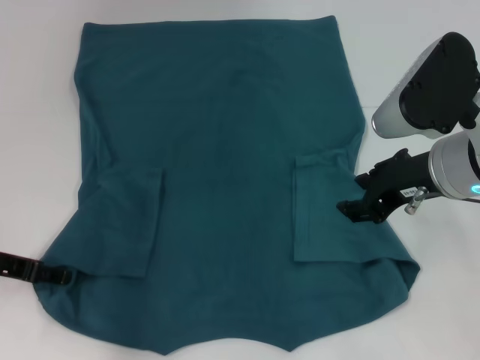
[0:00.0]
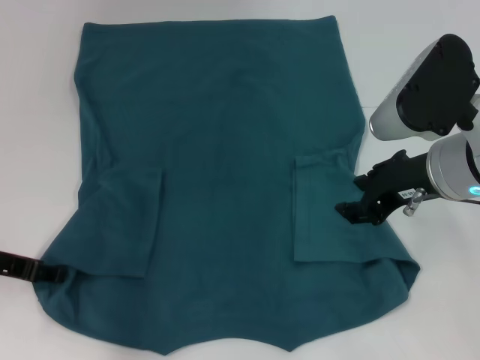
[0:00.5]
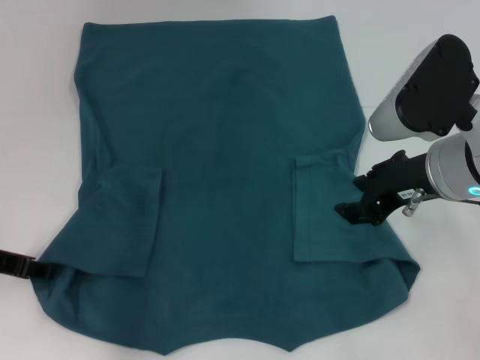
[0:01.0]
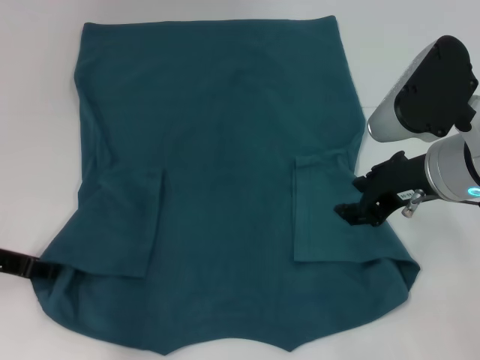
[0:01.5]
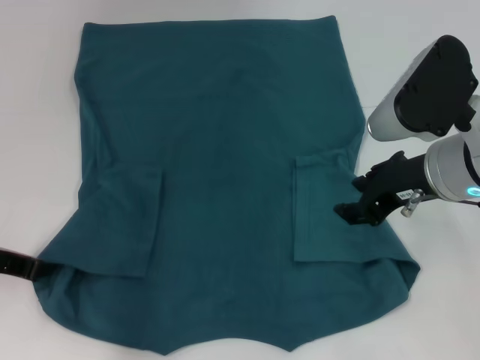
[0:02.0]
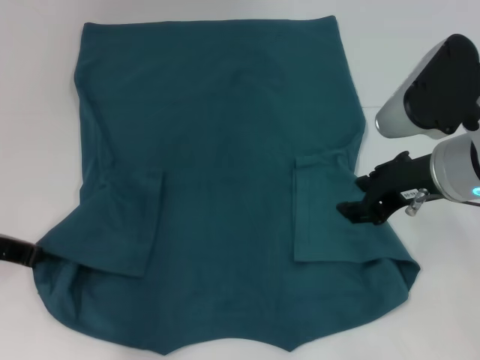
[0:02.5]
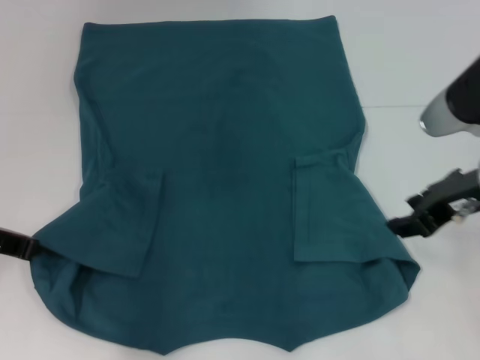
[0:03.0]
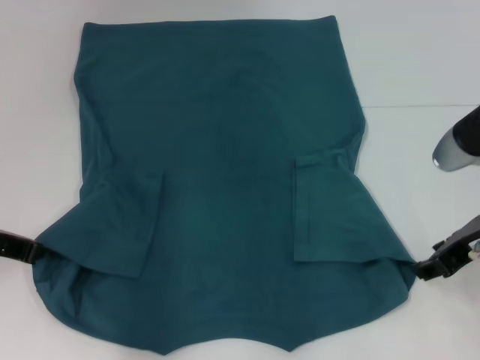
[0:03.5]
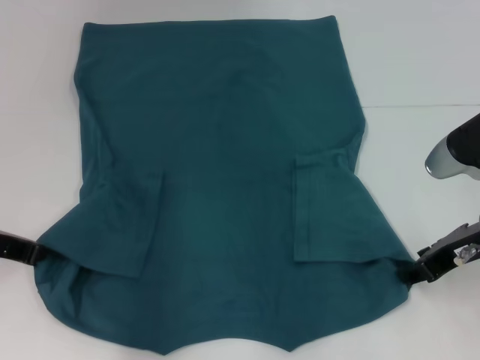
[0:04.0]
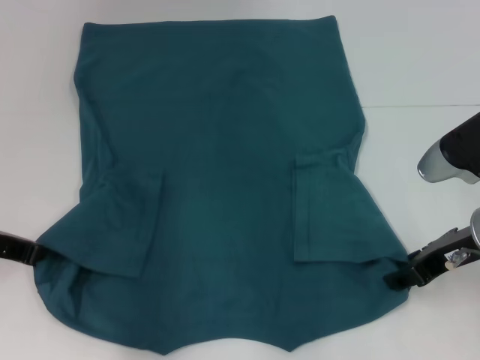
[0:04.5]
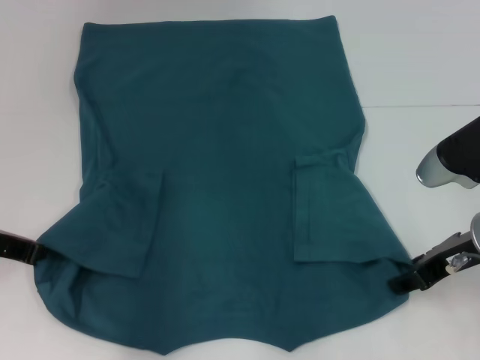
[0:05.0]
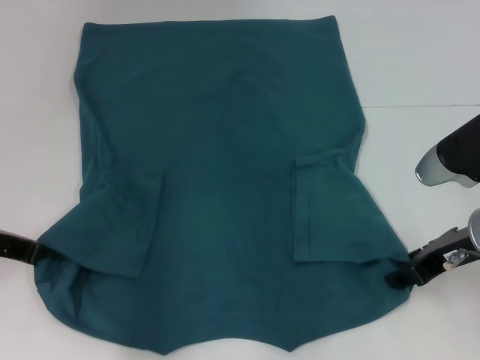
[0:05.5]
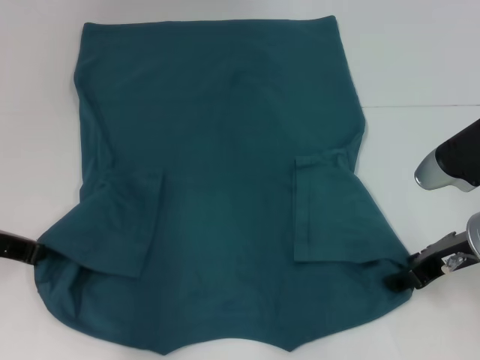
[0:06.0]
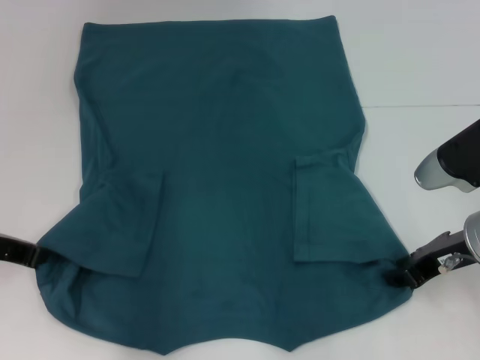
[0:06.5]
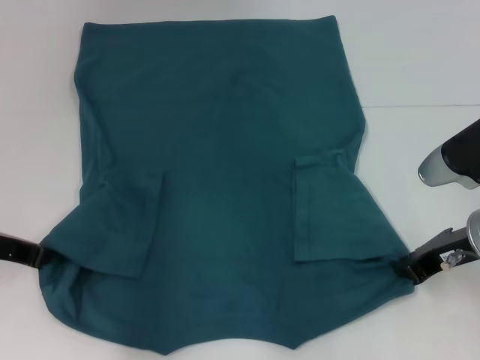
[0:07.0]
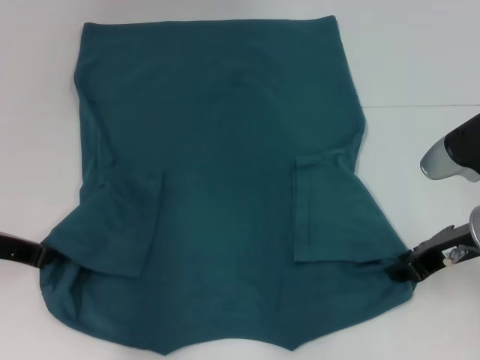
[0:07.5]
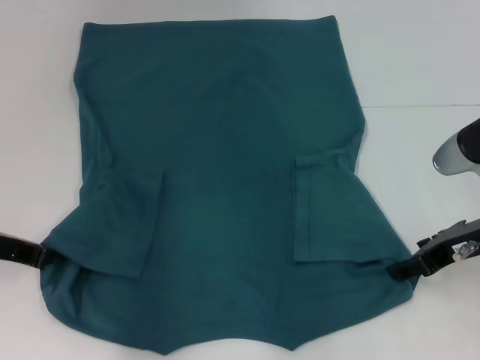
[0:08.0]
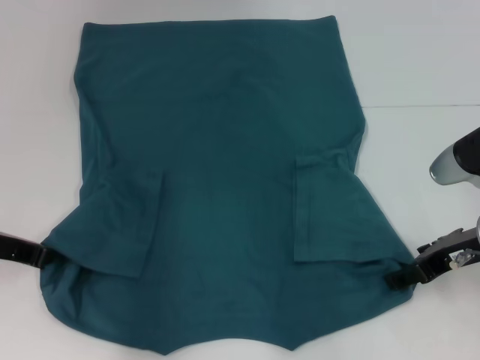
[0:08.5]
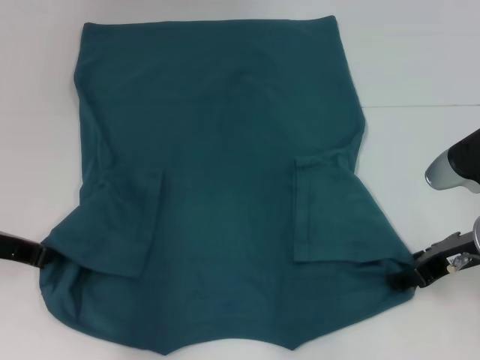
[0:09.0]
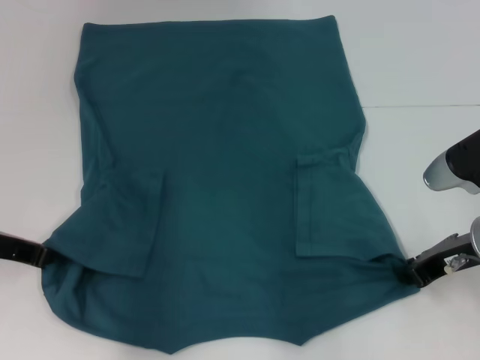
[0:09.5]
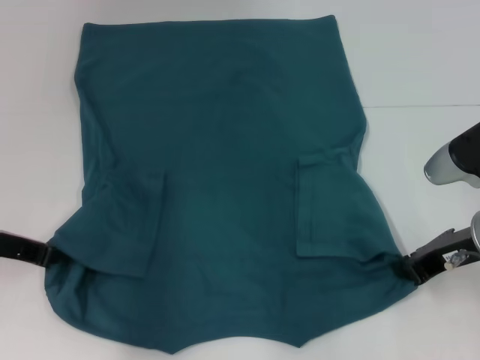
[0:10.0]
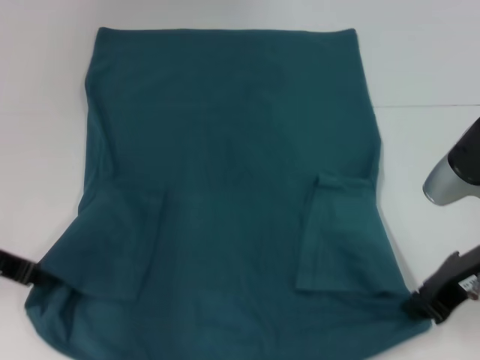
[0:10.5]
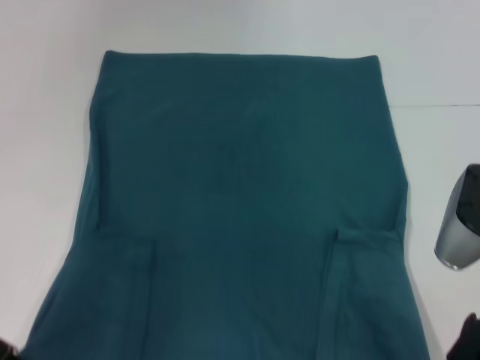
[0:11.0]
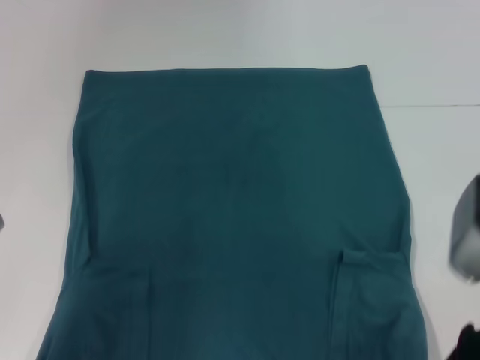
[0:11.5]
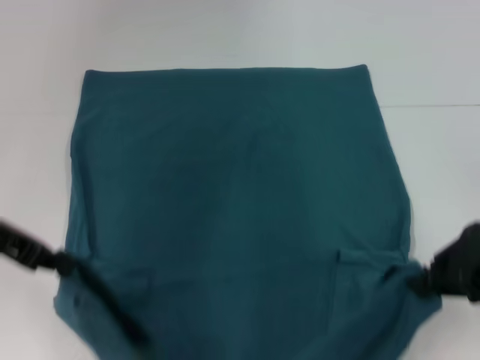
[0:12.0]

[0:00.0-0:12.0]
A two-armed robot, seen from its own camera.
Step, 0.0 to 2.5 s: Grab the bottom left corner with your left hand.
Step, 3.0 to 10.0 s: Grab the bottom right corner with your right hand.
2.0 to 4.0 s: The right gripper moves to the right and downward, some 10 cm.
4.0 to 6.0 s: The grippers stay close to where they were, moving slightly.
6.0 to 8.0 s: The right gripper closes, then reopens.
8.0 to 10.0 s: The right gripper closes up.
10.0 to 12.0 s: Both grippers move upward, some 10 cm.

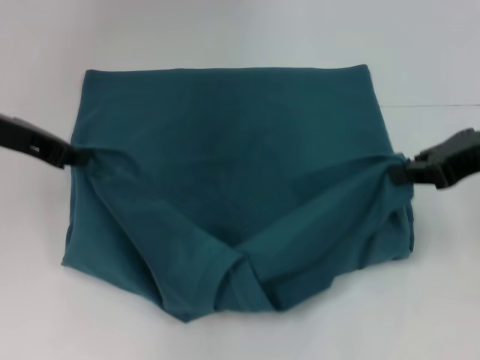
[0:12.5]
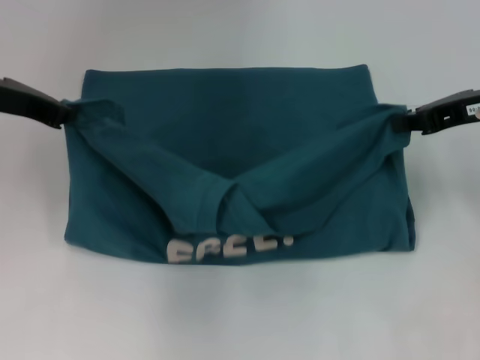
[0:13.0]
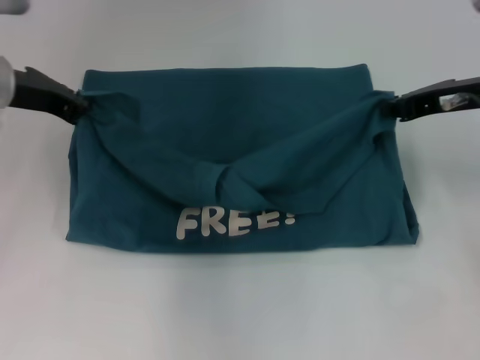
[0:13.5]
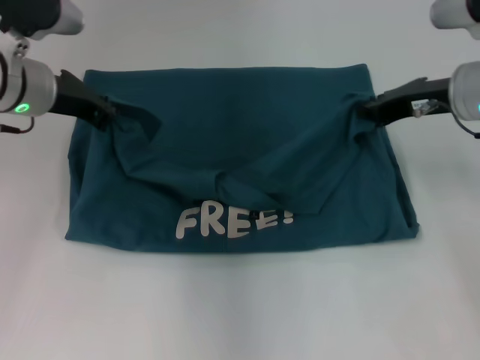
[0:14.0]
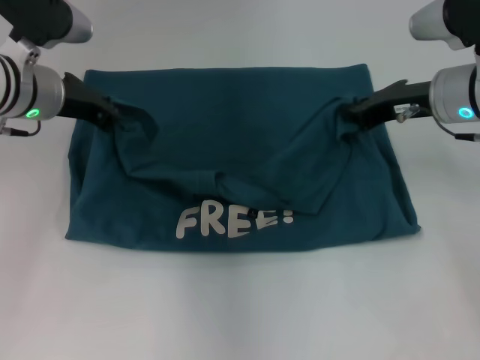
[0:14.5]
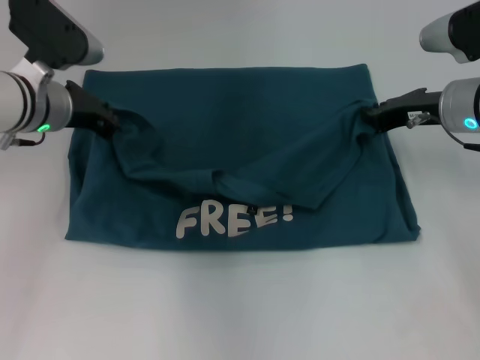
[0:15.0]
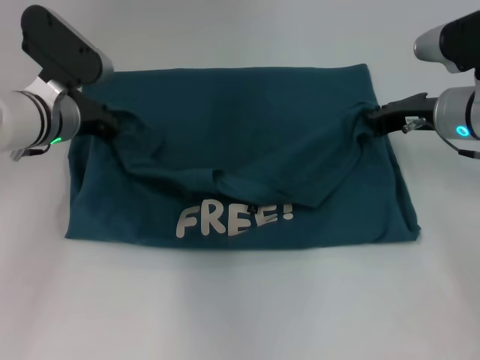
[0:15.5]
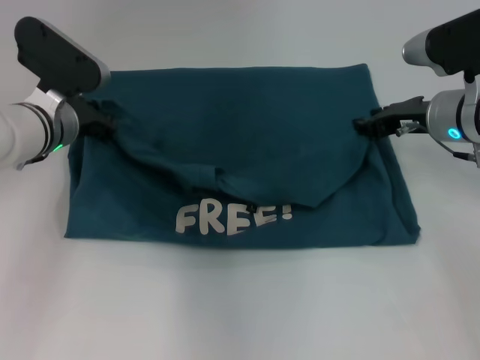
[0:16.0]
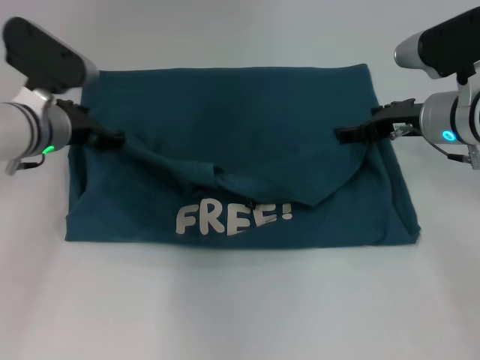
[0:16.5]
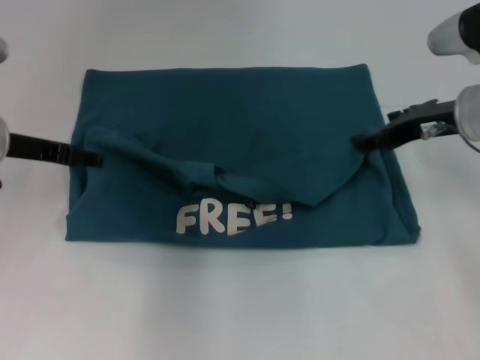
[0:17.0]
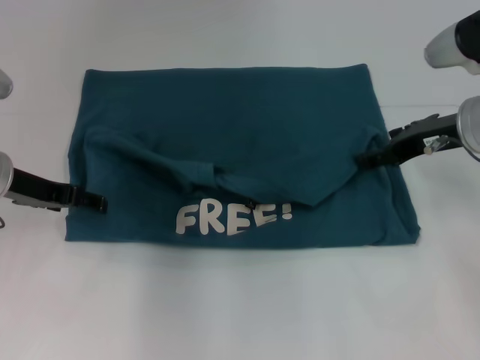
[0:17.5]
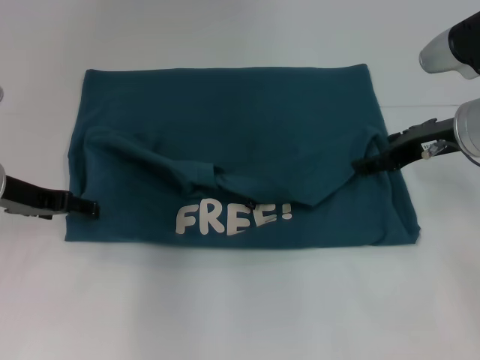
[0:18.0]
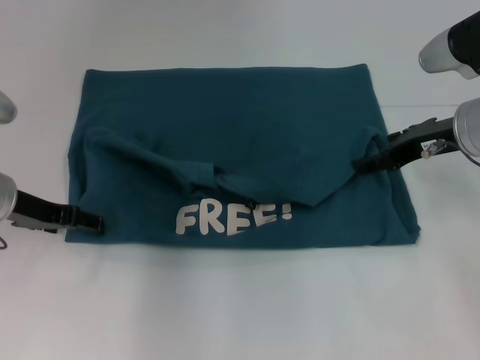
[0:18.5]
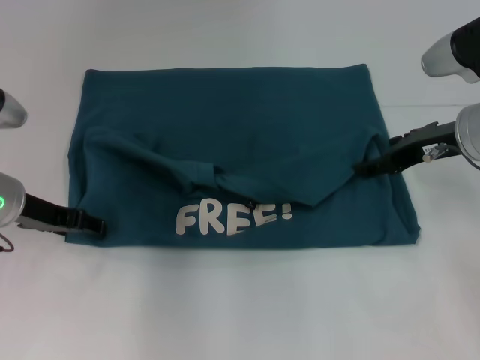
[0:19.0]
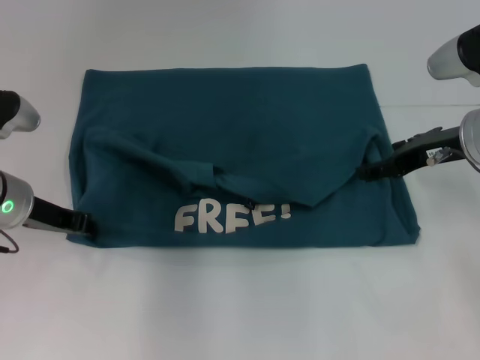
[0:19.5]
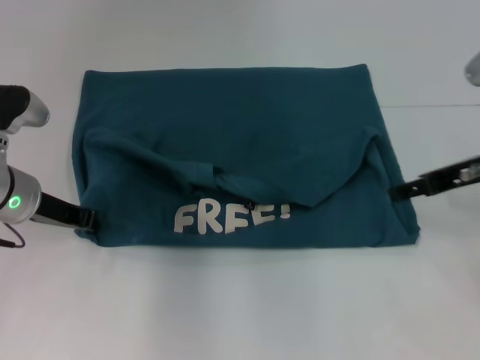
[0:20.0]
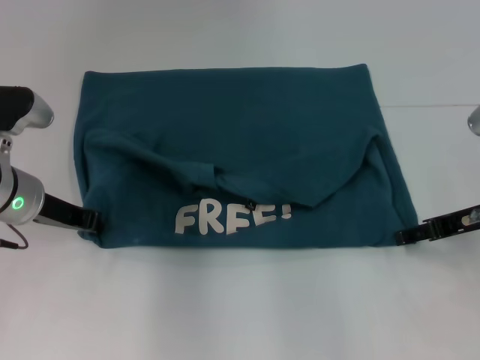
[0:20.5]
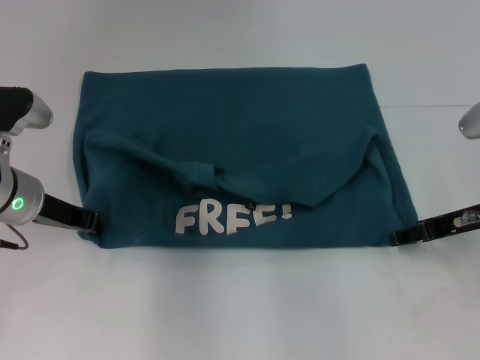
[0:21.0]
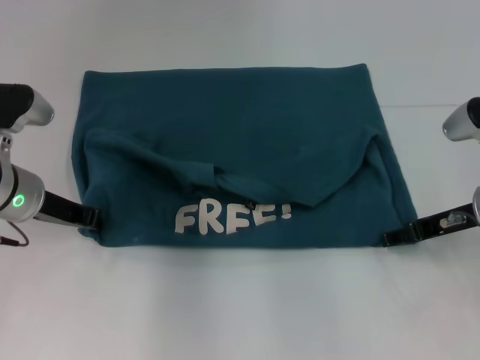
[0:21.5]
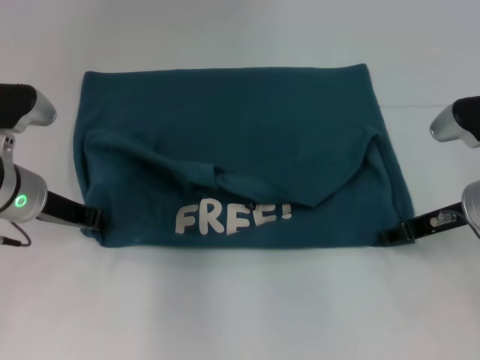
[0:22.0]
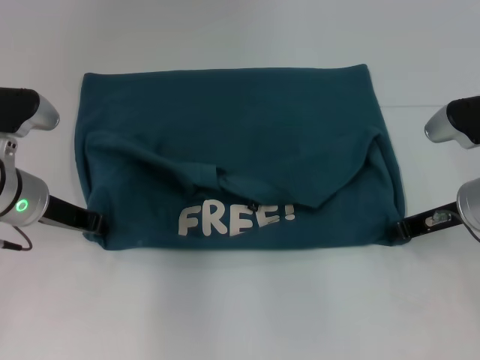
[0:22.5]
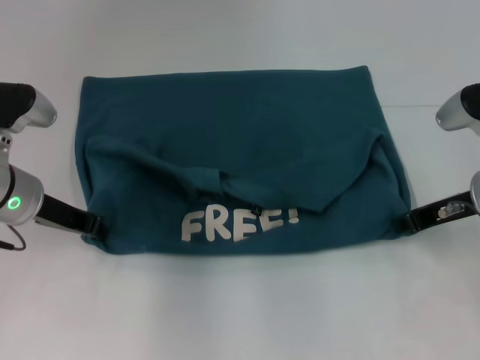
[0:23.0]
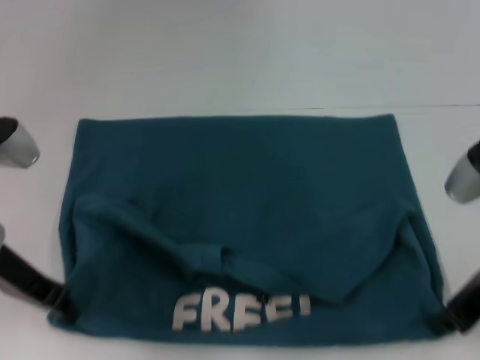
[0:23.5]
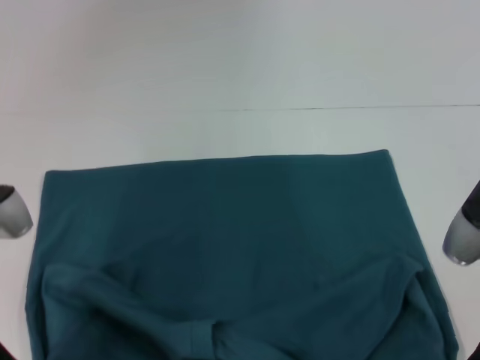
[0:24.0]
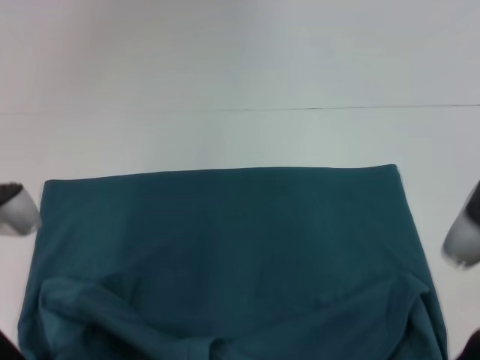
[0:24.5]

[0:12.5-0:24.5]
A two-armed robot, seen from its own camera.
Step, 12.5 to 16.5 s: Fold the clothes to the left.
Step, 12.5 to 16.5 s: Fold the clothes to the right.
Step, 17.0 to 24.5 s: Pull the clothes with your left hand.
Step, 17.0 to 24.5 s: Pull the clothes with your right hand.
12.5 to 14.5 s: Both grippers travel together forward and downward, some 10 cm.
14.5 to 16.5 s: The right gripper opens its fingers, while the left gripper shifts approximately 5 cm downward, and opens up.
16.5 to 18.5 s: The left gripper is displaced backward and to the left by approximately 10 cm, and opens up. Meanwhile the right gripper ends up about 5 cm from where it was.
18.5 to 20.5 s: The right gripper moves some 10 cm; the left gripper closes.
20.5 to 22.5 s: The right gripper closes its fingers.
22.5 to 24.5 s: The left gripper goes some 10 cm backward. Meanwhile the right gripper travels backward and upward by roughly 10 cm.

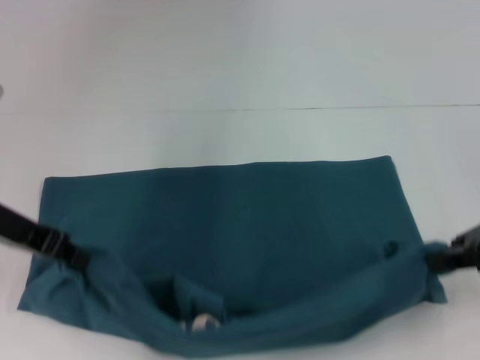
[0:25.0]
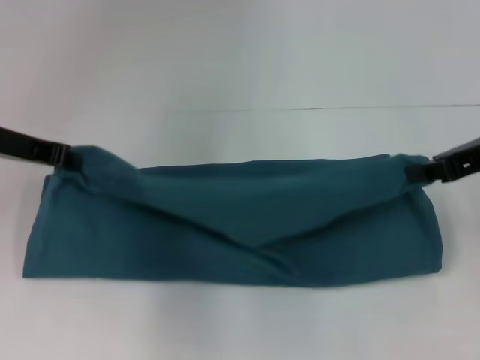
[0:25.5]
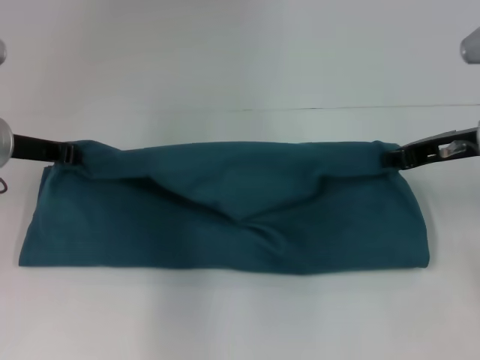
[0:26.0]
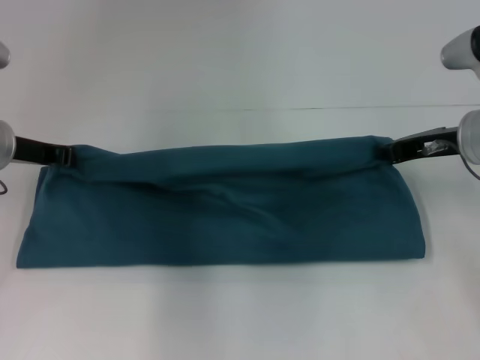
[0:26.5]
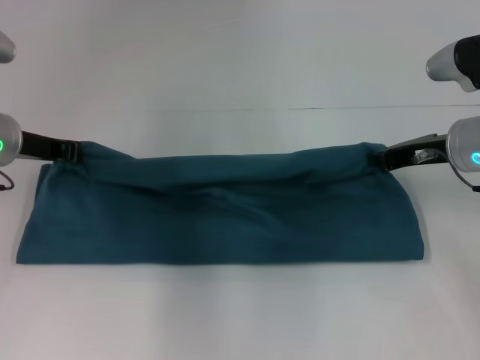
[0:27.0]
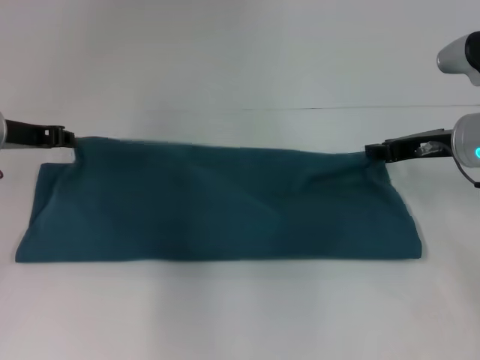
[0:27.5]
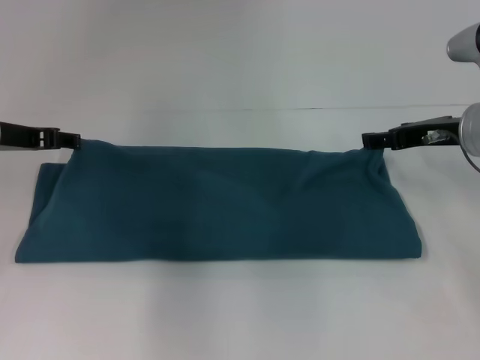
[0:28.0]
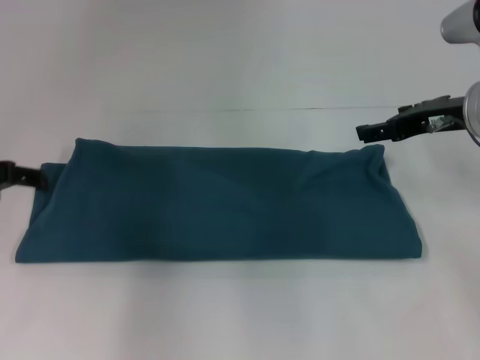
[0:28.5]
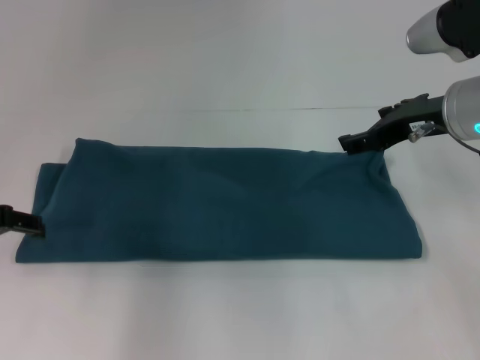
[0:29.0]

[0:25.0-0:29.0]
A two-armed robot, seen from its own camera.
Step, 25.0 to 27.5 s: Fold the clothes to the left.
Step, 25.0 to 27.5 s: Fold the clothes to the right.
25.0 to 27.0 s: The right gripper travels forward and downward by about 10 cm. Meanwhile the left gripper moves forward, approximately 10 cm.
27.0 to 29.0 s: The left gripper shifts roughly 10 cm backward and to the left, and opens up. The right gripper goes approximately 5 cm upward, and opens.
